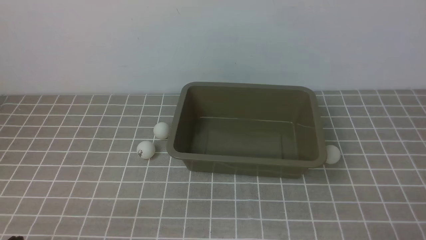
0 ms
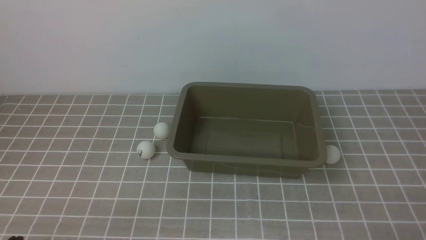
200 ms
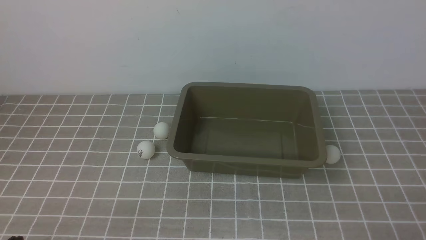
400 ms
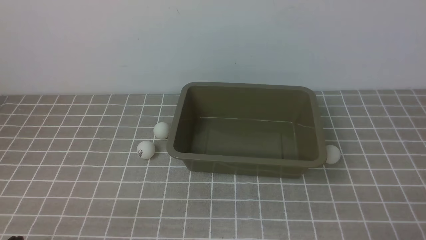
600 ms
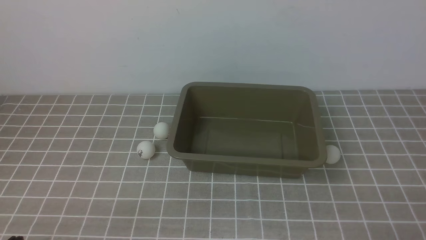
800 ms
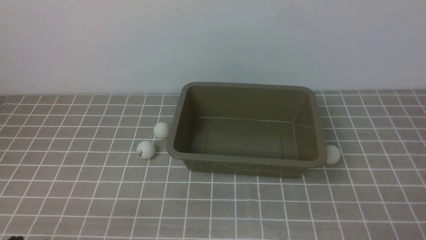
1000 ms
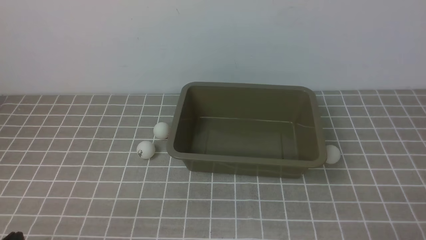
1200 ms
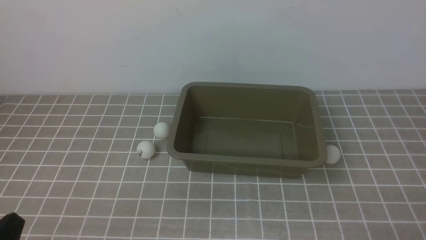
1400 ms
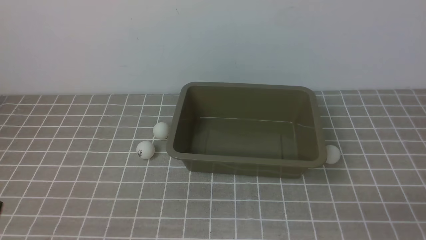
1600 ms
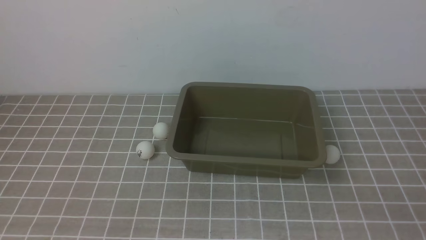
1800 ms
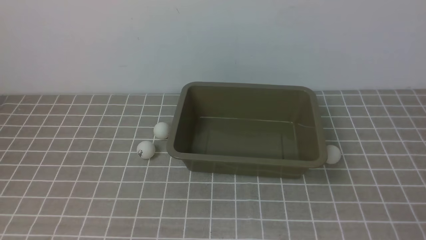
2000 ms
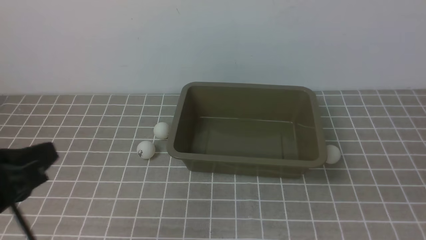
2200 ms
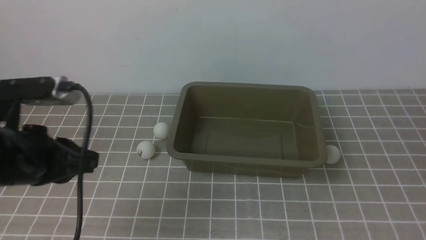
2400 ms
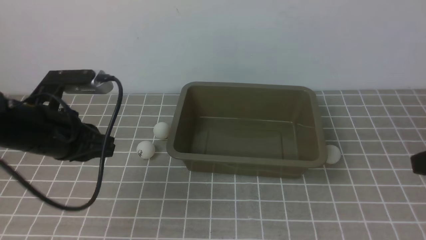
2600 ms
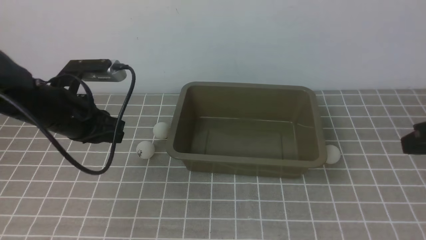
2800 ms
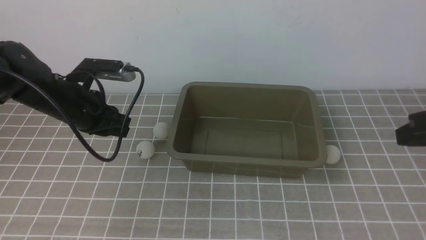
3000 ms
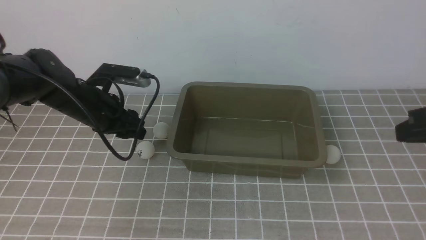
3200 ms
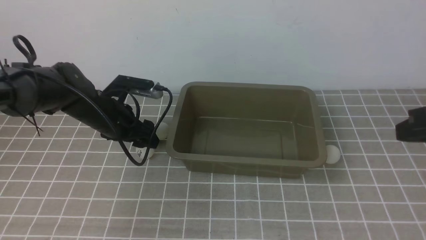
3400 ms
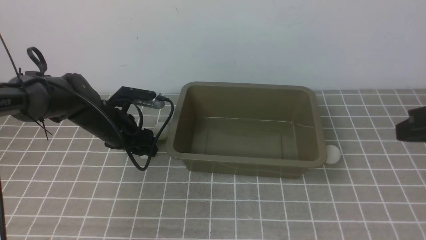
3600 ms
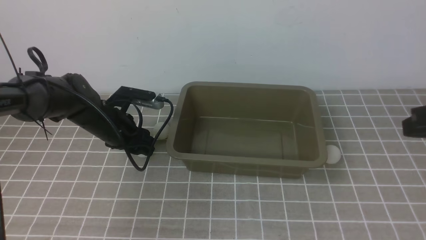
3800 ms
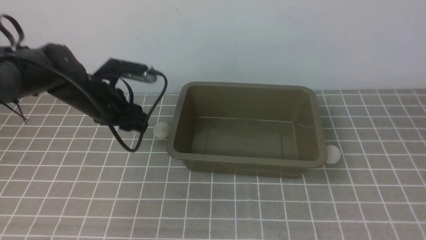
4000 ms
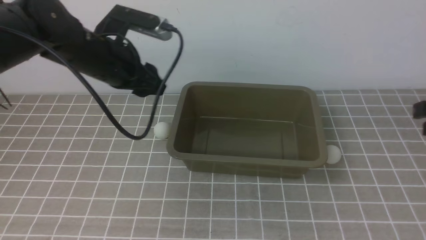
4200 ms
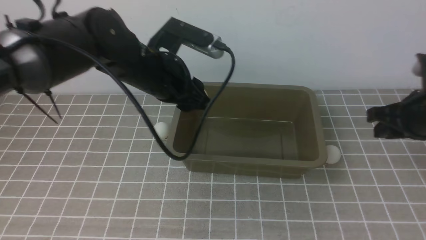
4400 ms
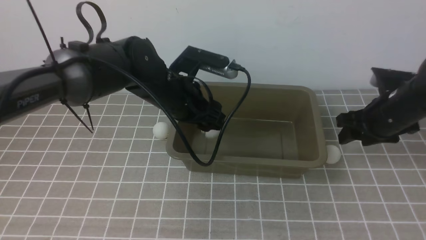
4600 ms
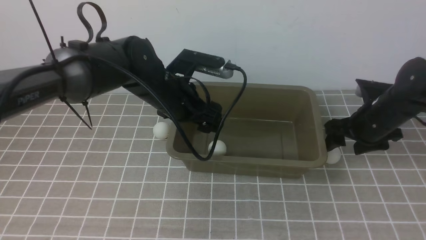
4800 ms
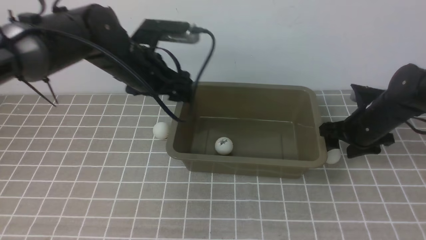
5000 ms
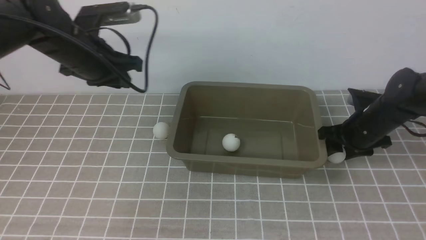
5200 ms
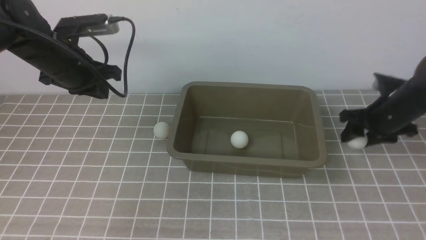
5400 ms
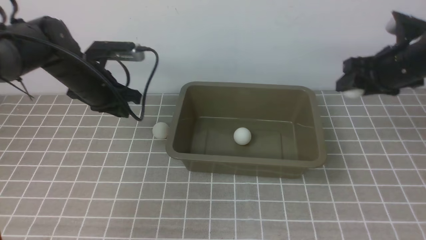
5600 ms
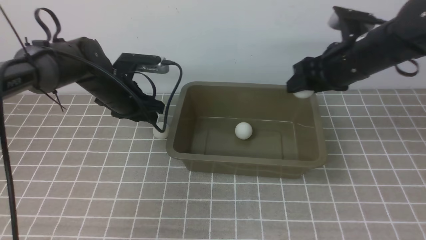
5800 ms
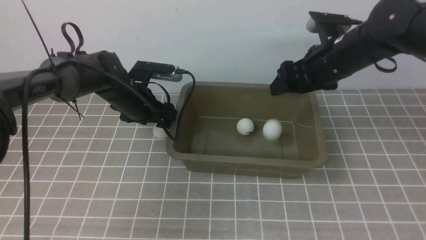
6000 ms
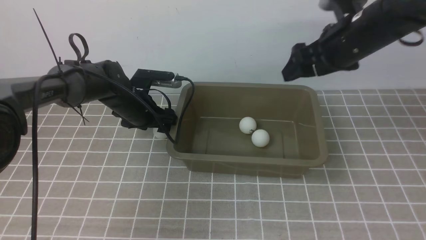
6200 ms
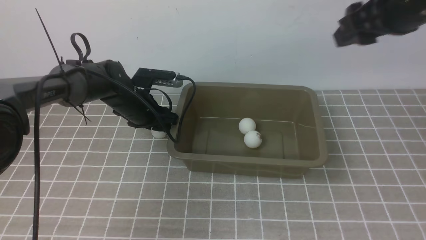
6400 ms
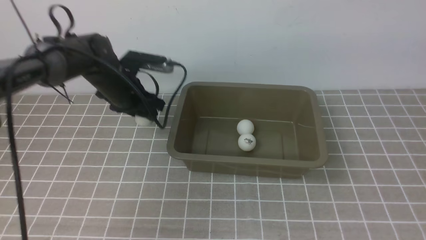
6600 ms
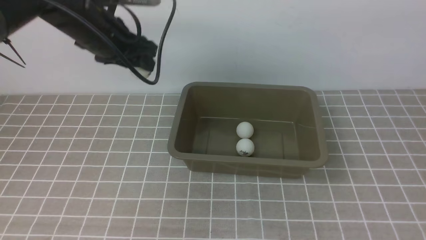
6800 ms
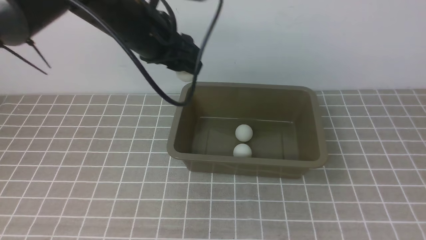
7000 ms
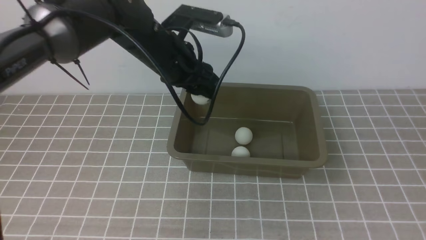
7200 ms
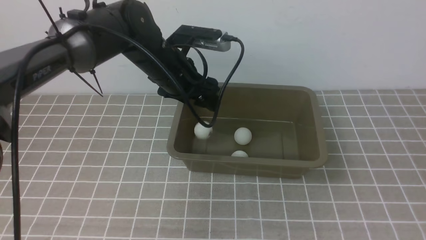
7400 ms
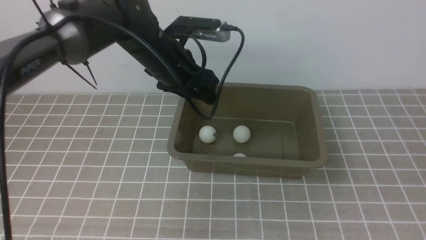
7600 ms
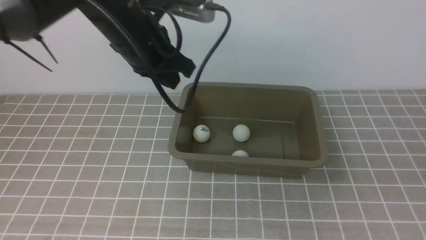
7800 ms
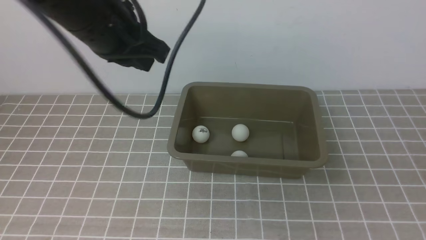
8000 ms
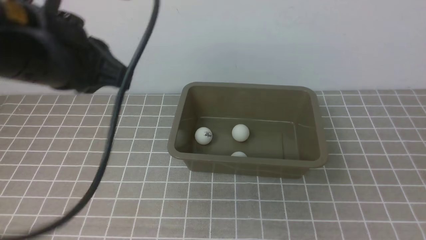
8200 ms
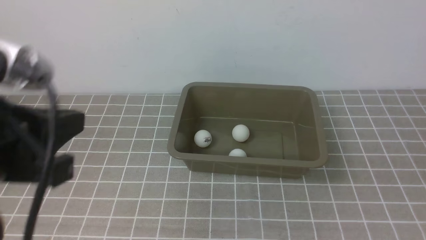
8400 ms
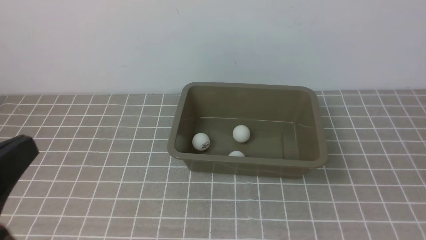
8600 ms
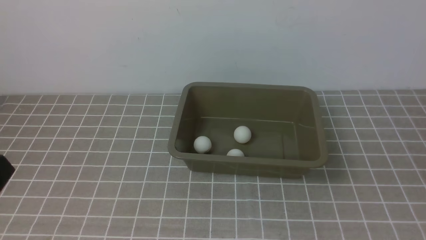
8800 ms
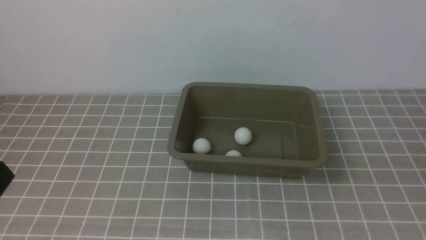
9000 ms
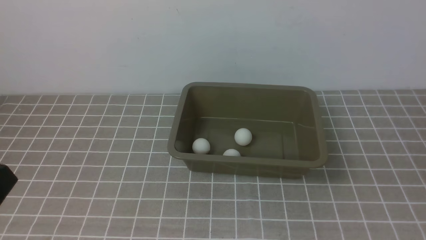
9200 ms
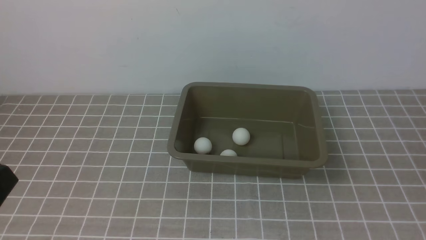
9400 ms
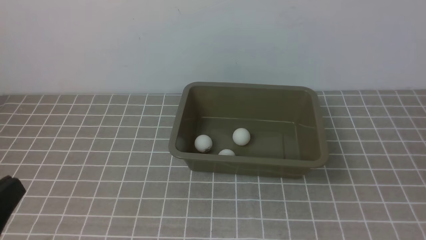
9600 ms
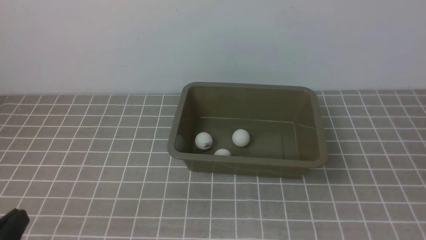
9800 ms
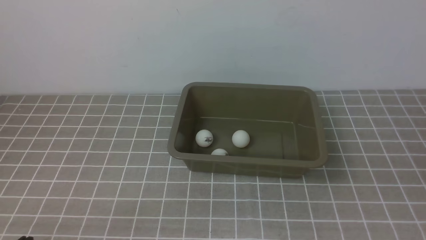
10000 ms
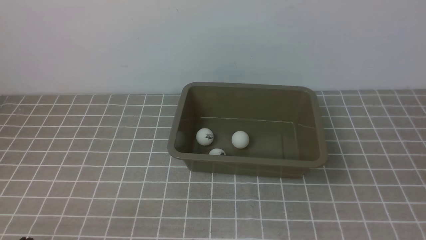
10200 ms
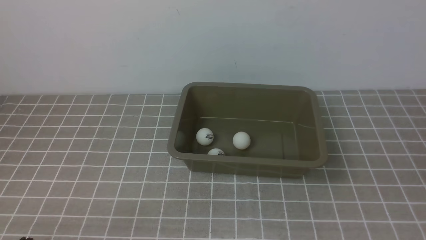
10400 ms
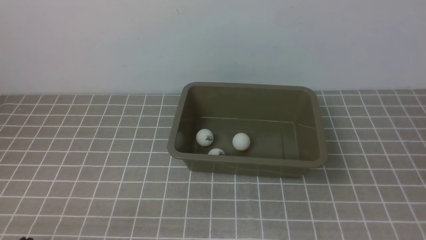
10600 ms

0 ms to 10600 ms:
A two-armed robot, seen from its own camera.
Step, 0 ms to 4000 ms: use the left arm to clamp the table tennis ball closest to it.
Step, 4200 ms to 4800 ms: use the left arm to put the table tennis ball into the box.
Step, 5000 ms to 5400 ms: use the right arm to clamp the table tennis ball closest to it.
Step, 5600 ms to 6200 ms: use the right arm to put the table tennis ball into the box.
Step, 6400 ms to 6600 ms: use the left arm to clamp the table tennis ball closest to it.
Step, 6800 ms to 7400 ms: use the left arm to put the table tennis ball into the box.
1600 ms to 3000 ms: The right gripper shifts about 20 cm upward and forward. Meanwhile the left gripper shifts about 30 cm forward.
3000 ms to 4600 ms: The right gripper travels forward and downward by approximately 20 cm, and opens up, while the left gripper travels to the right by approximately 15 cm, and opens.
4600 ms to 6000 ms: The left gripper moves to the left, downward and forward, approximately 15 cm, and closes, then reopens. The right gripper goes approximately 15 cm upward and to the left.
6000 ms to 7600 ms: The right gripper goes about 40 cm backward, and closes its fingers. The left gripper moves upward and to the right, roughly 15 cm.
7600 ms to 9000 ms: The left gripper is displaced backward and to the left by some 40 cm, and closes its fingers.
9000 ms to 10600 ms: The left gripper moves downward, some 15 cm.

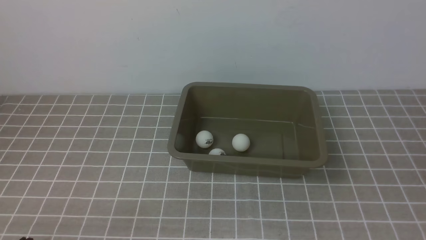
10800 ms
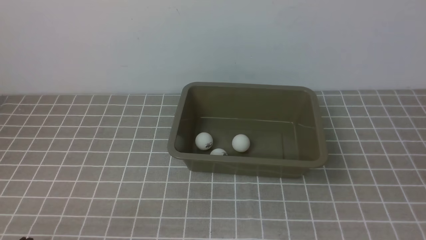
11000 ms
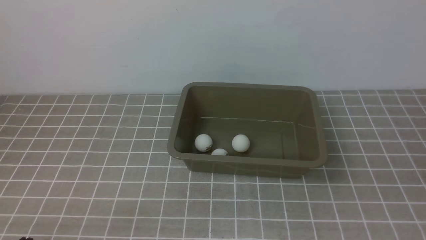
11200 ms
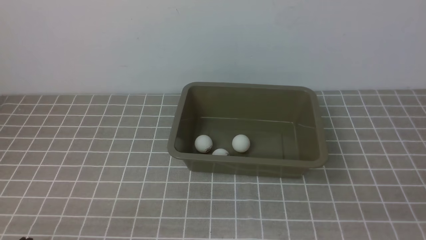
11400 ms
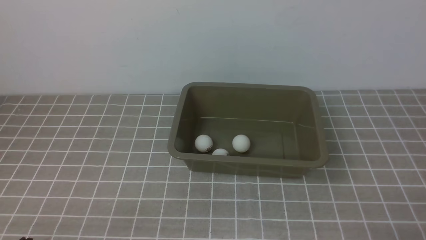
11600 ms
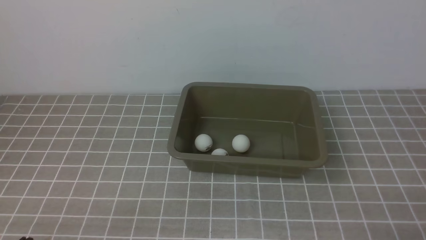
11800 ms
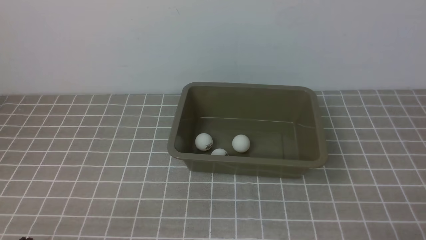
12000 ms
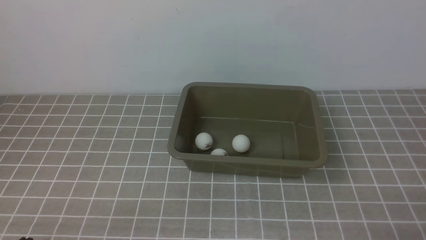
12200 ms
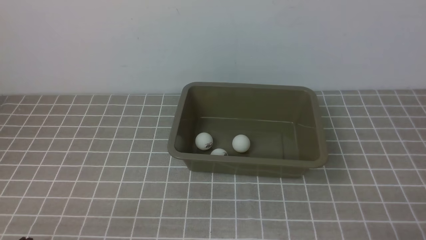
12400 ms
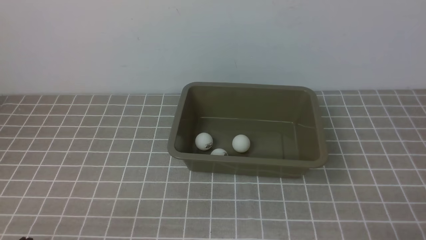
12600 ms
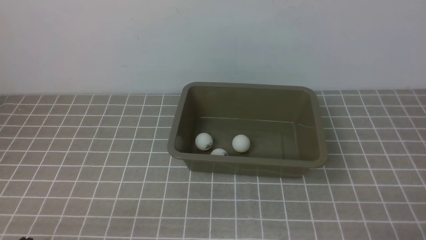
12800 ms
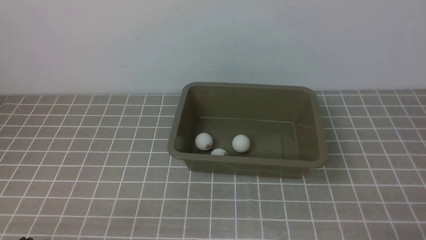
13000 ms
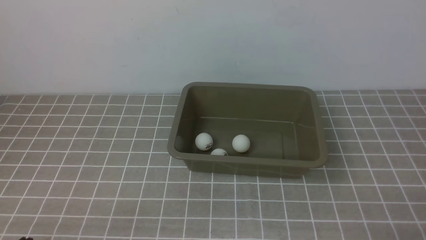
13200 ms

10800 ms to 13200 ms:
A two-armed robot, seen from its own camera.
12000 ms to 13200 ms: The two grippers keep their place.
